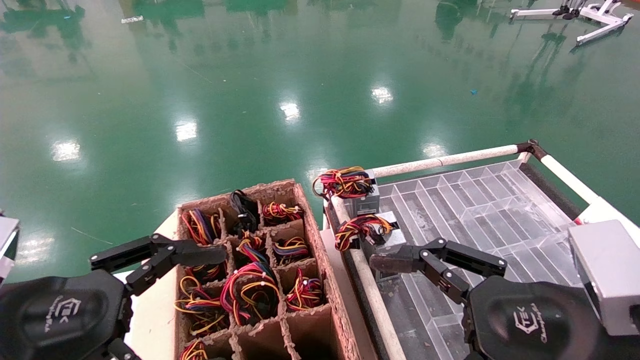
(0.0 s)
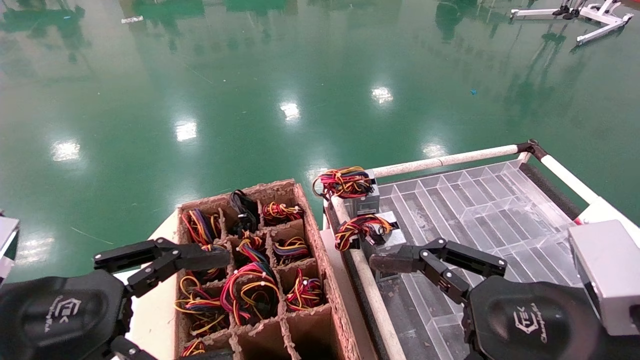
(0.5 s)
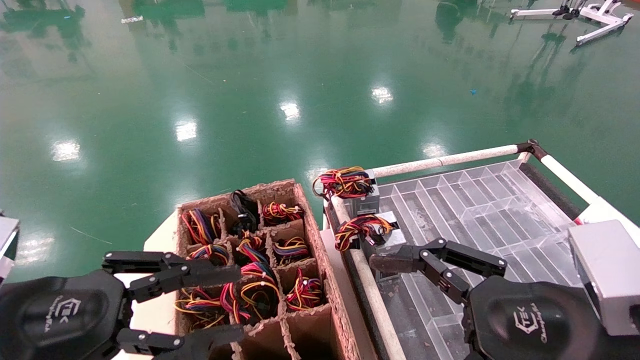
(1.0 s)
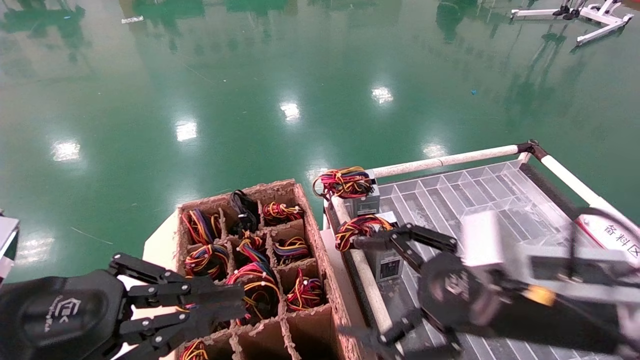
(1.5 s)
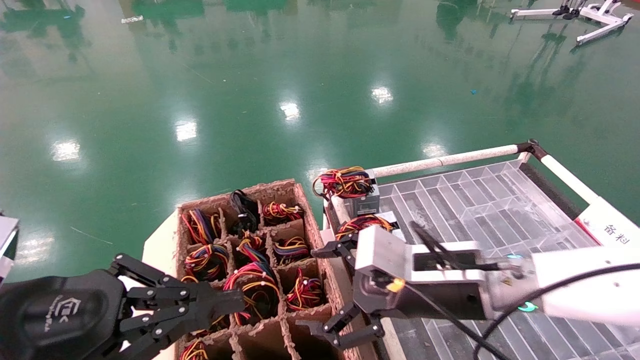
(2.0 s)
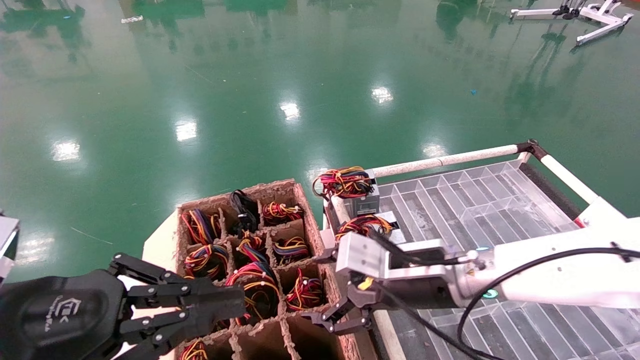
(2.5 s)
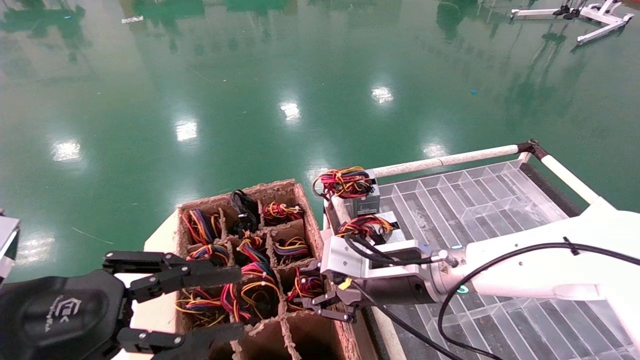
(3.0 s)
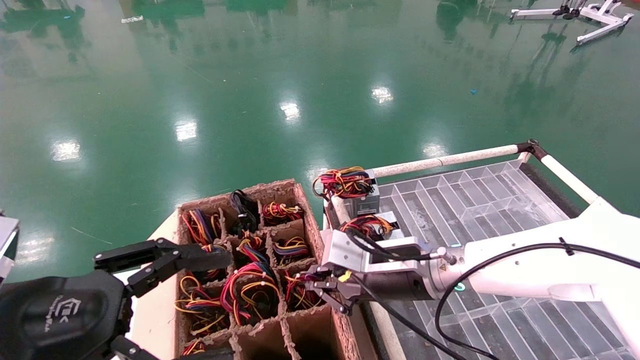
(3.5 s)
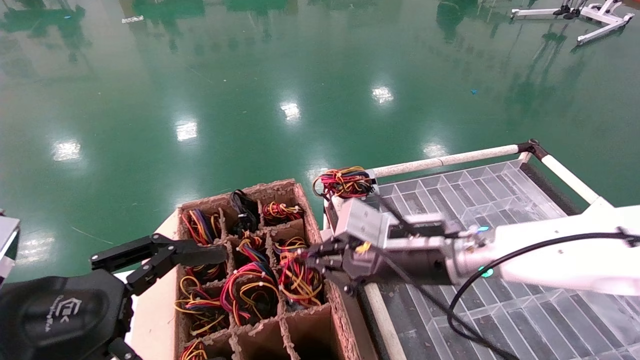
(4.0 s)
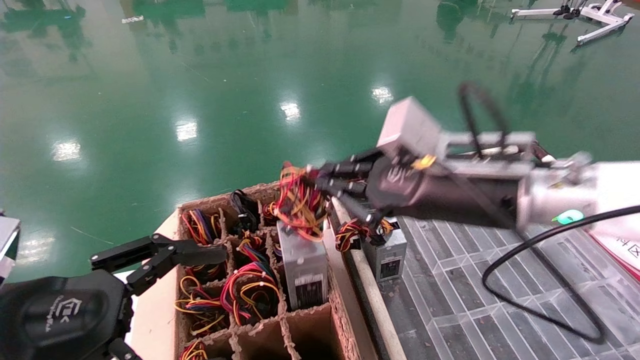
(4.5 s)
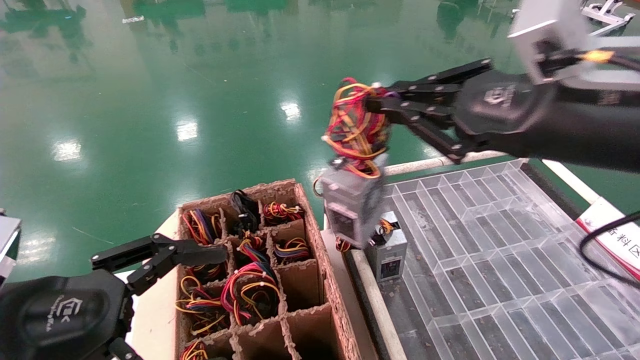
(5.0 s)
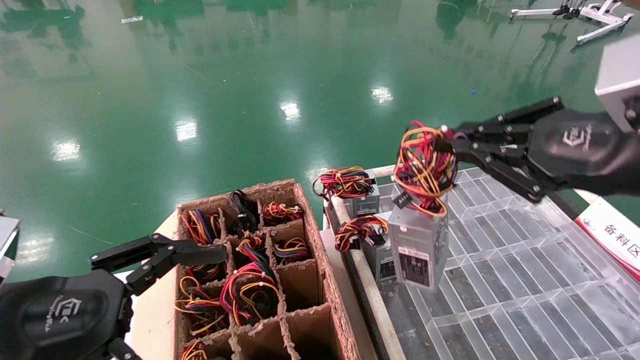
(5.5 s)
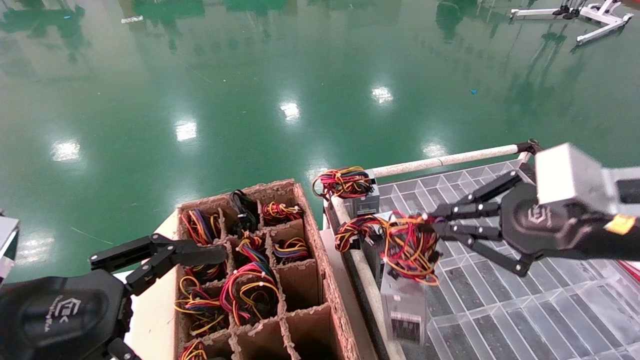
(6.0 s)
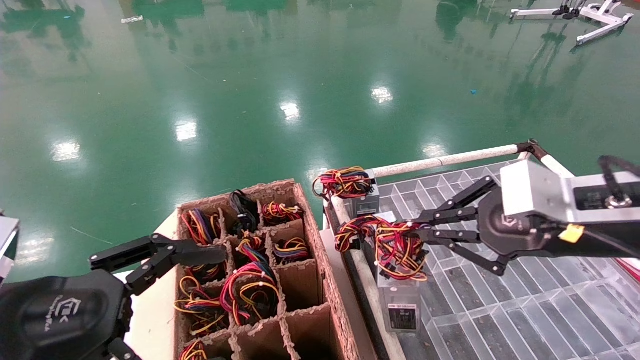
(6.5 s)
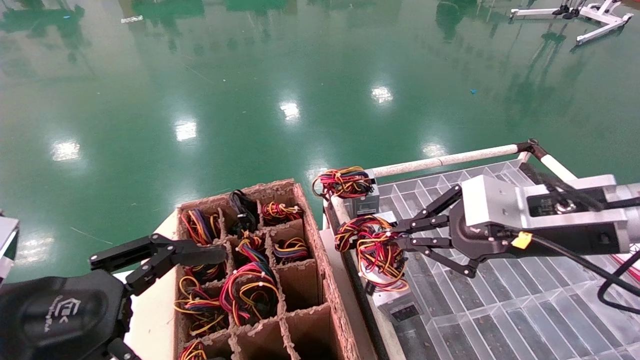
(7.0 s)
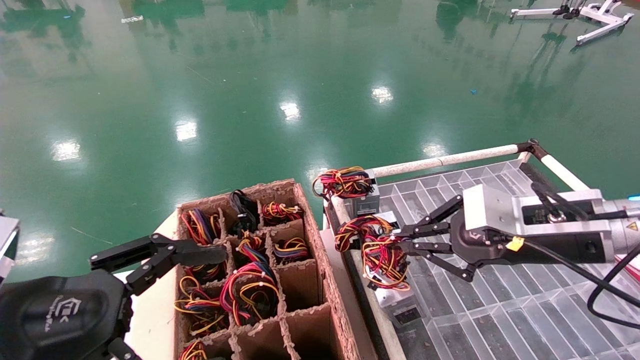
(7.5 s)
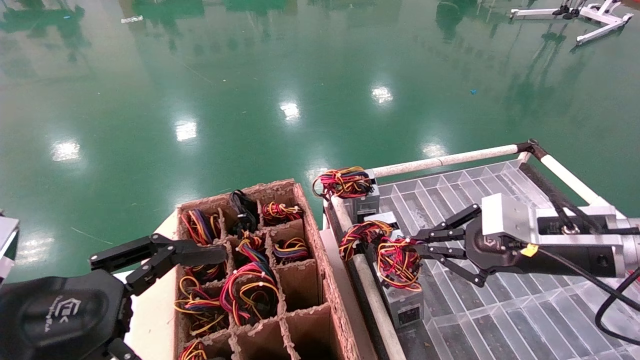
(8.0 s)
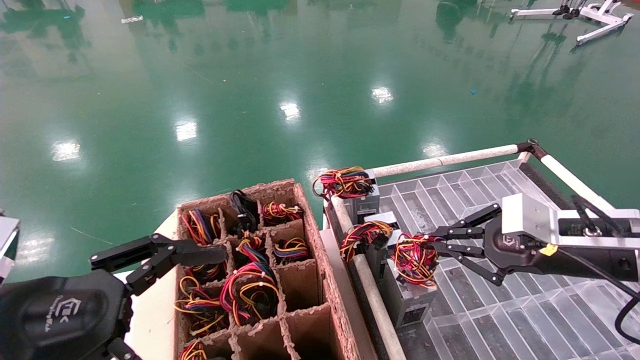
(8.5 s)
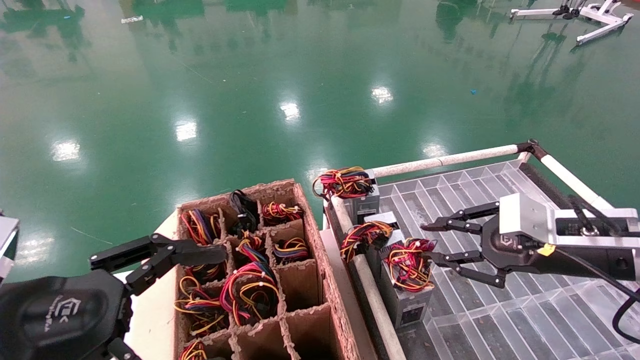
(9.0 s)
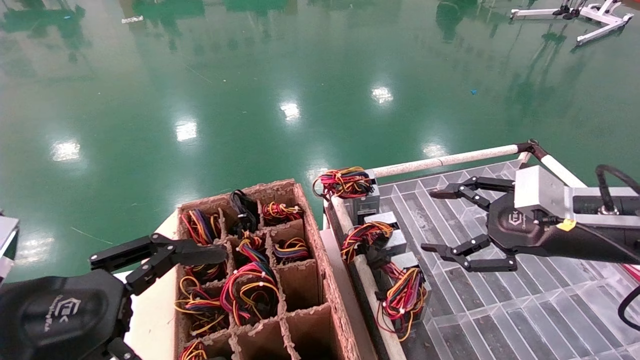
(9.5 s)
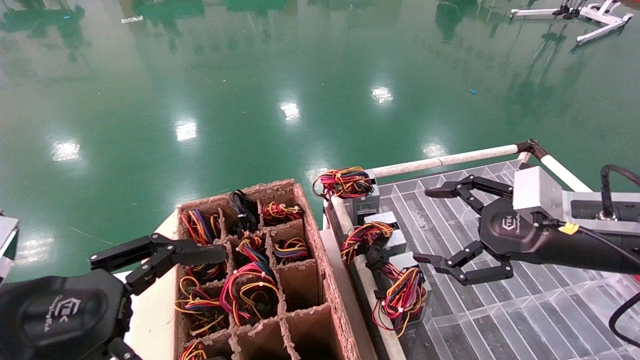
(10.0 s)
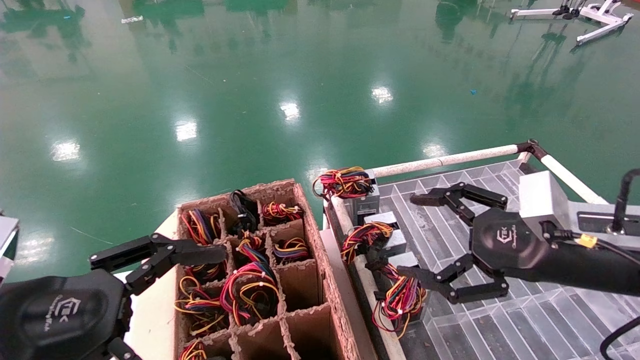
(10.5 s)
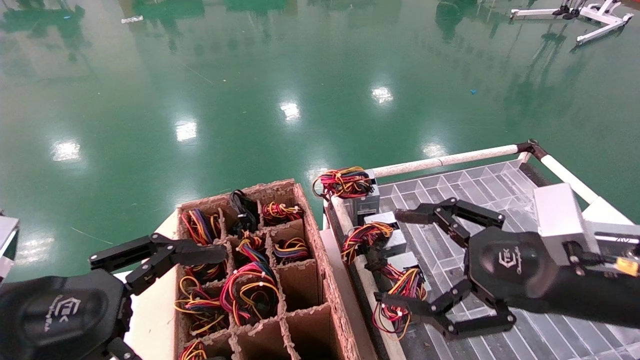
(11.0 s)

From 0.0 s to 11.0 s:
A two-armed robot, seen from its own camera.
Step, from 2.0 s to 3.5 s: Grab and lift the power supply from the large box.
Step, from 4.0 s to 8.5 s: Place the power supply on the operating table.
From 0.0 s to 2.0 s: The right gripper shifts roughly 15 cm forward and to the left. Meanwhile the left gripper closes its fingers.
From 2.0 s to 3.5 s: The left gripper opens. The right gripper moves forward, some 5 cm, and closes its fingers.
From 3.5 s to 5.5 s: The right gripper moves to the right, upward and backward, about 30 cm.
From 5.5 s to 7.5 s: The right gripper goes some 15 cm forward and downward.
From 7.5 s to 9.0 s: The right gripper shifts by roughly 5 cm.
From 9.0 s to 11.0 s: The right gripper shifts about 10 cm backward and to the left, and opens its fingers.
